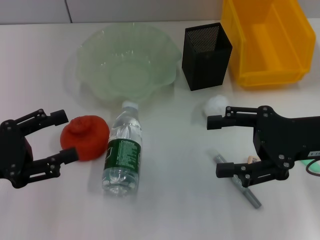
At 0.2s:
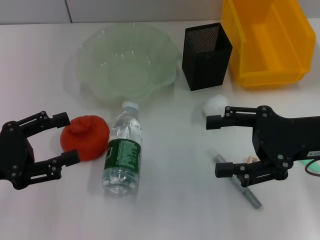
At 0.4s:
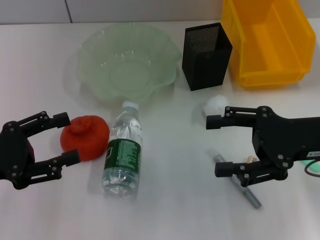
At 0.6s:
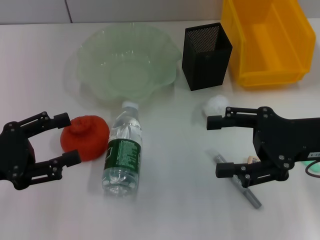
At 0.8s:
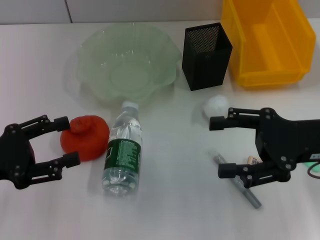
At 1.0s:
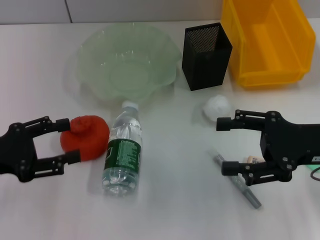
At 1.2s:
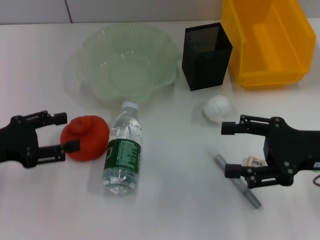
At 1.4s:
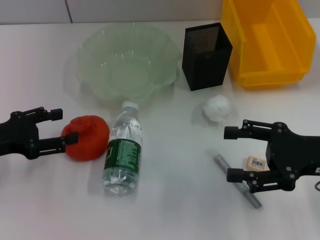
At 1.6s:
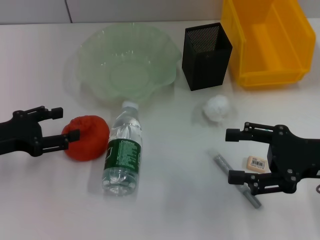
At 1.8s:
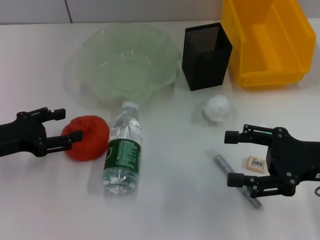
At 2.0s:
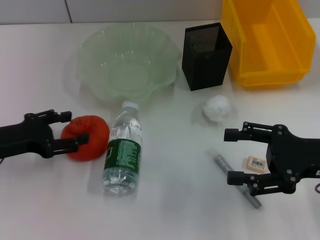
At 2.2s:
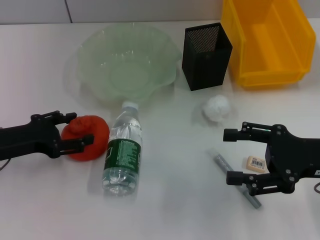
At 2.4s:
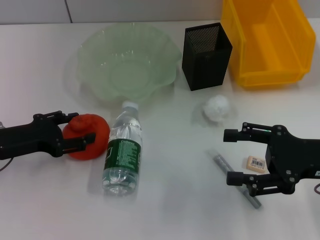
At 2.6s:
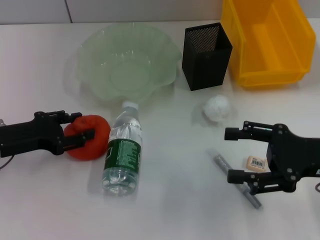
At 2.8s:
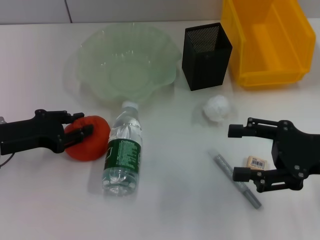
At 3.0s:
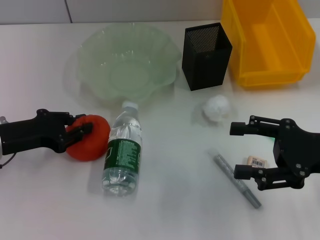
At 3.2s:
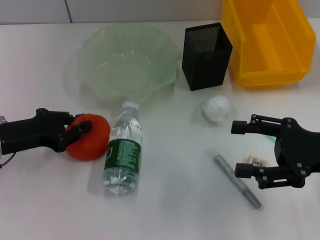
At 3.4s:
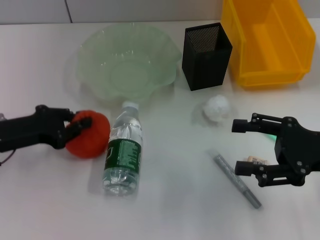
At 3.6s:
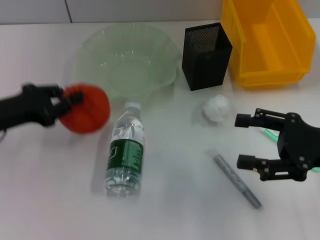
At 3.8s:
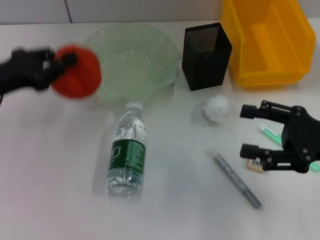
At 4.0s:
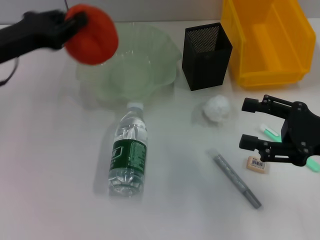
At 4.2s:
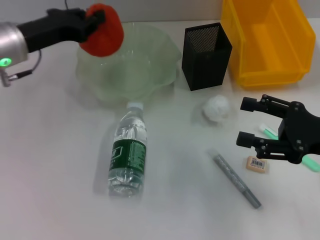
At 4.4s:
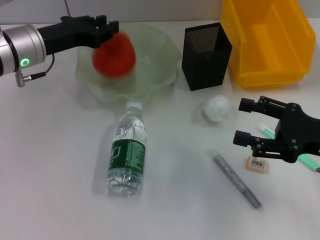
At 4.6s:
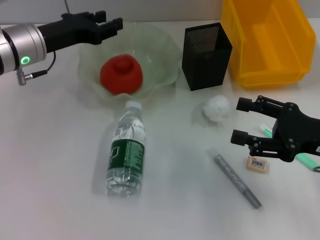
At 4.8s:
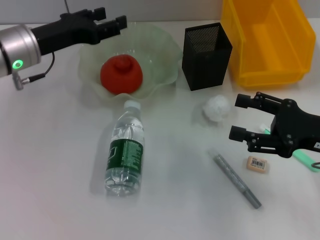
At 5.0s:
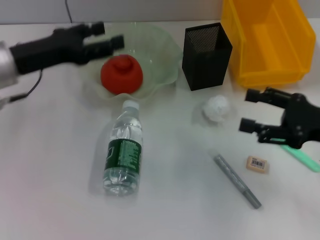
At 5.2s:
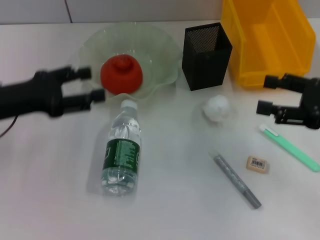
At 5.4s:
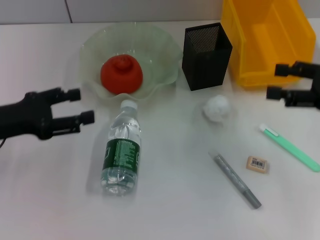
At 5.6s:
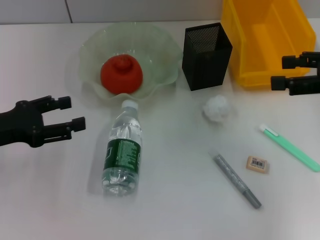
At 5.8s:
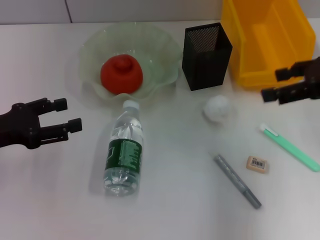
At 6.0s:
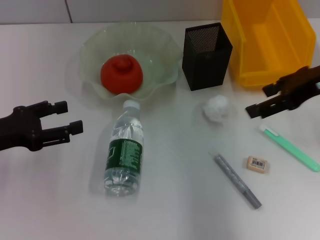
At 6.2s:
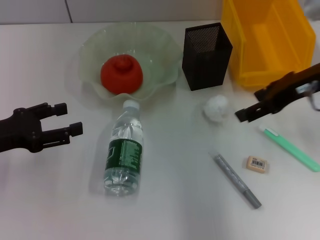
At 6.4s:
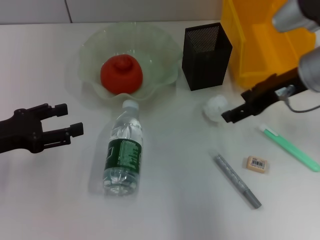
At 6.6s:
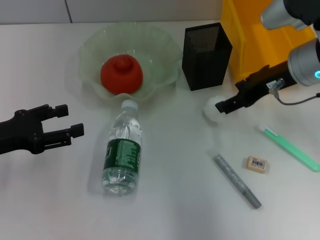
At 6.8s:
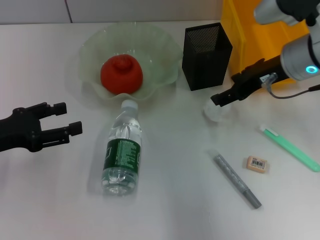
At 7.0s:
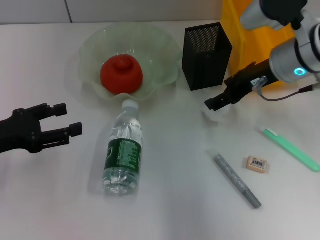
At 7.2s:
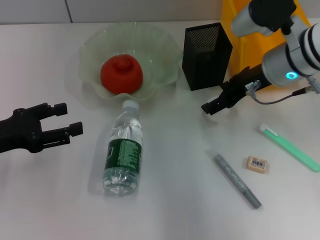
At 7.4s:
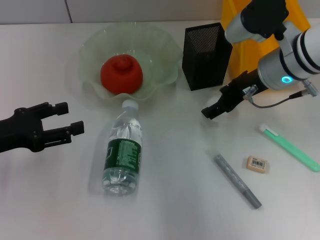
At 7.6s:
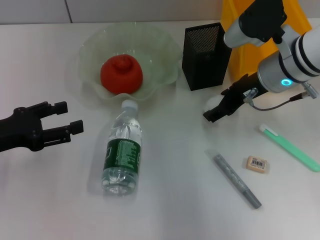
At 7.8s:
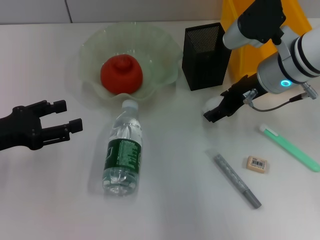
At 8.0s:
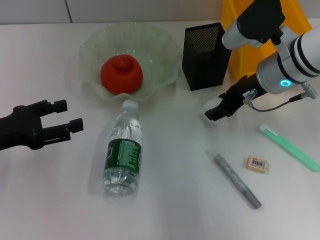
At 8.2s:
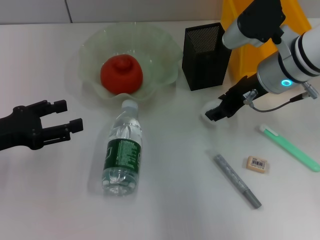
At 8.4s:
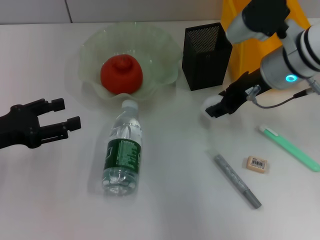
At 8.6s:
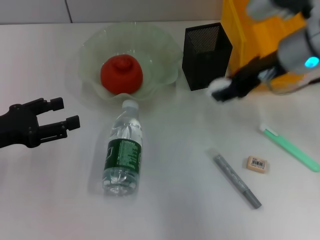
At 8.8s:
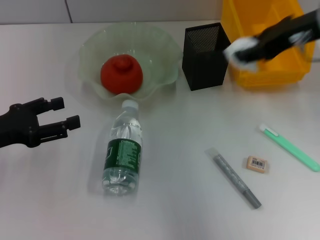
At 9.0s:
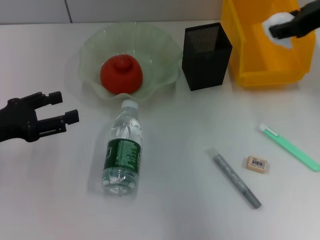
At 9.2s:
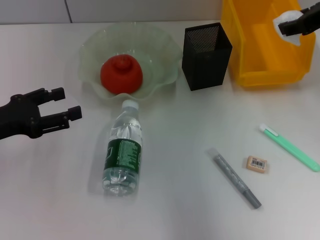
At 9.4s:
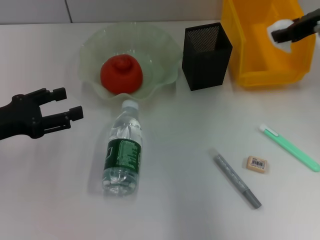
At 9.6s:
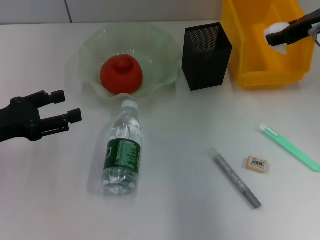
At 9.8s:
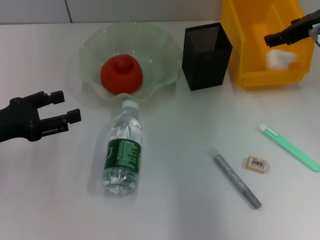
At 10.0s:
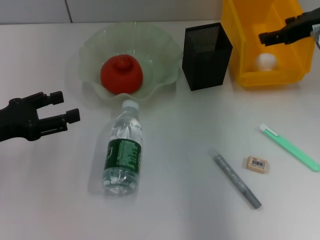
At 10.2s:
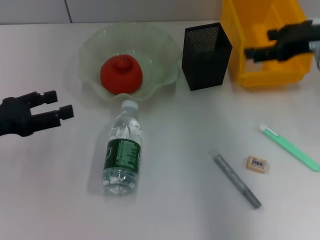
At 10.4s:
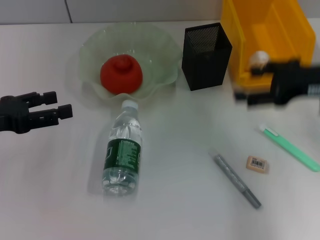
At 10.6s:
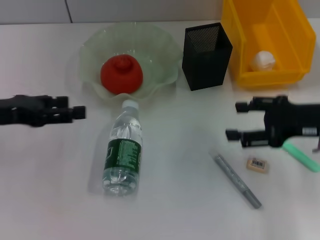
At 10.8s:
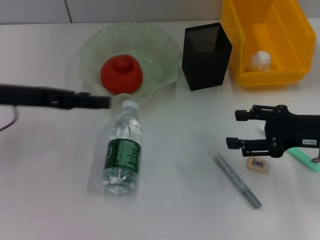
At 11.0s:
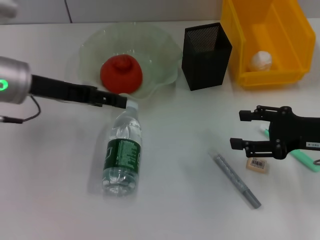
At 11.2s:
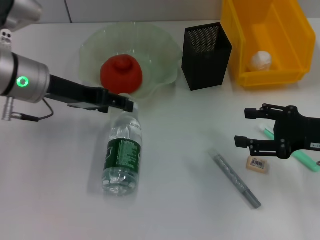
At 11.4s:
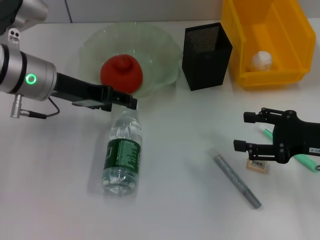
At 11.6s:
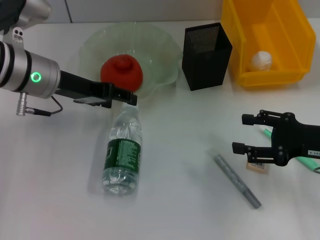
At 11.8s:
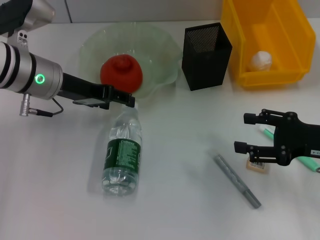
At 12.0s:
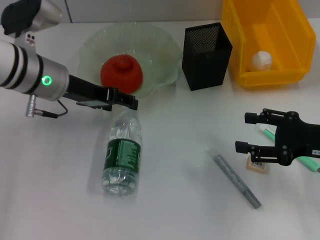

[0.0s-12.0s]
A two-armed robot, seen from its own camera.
Step, 0.0s to 3.2s: Grab the orange with the left hand.
Step, 3.4s to 4.4s: Place the orange into the fruit bowl with the left hand.
Step, 4.6s to 8.0s: Grab the paper ball with the right hand.
Step, 8.2s to 9.8s: Place the paper ball into the trash can with the right hand.
0.0s to 1.6s: The left gripper heads forward, covering approximately 5 cm.
1.6s to 3.0s: The left gripper closes its fingers.
3.0s to 4.4s: The left gripper moves forward, to the right and upward, about 15 cm.
4.4s to 6.0s: The right gripper goes some 15 cm upward and forward; the left gripper travels backward and to the left by some 15 cm, and opens.
6.0s to 7.6s: The right gripper is displaced to the left and downward by about 10 cm.
7.6s to 9.0s: The right gripper goes some 15 cm upward and to the right, and closes up.
9.0s to 10.4s: The right gripper moves downward and backward, roughly 10 cm, and opens its fingers.
10.4s to 12.0s: The left gripper is displaced to the right and forward by approximately 15 cm. The right gripper goes roughly 10 cm downward and backward.

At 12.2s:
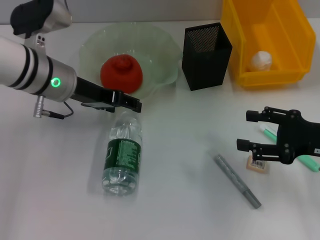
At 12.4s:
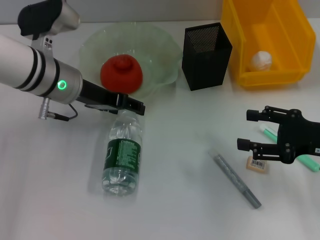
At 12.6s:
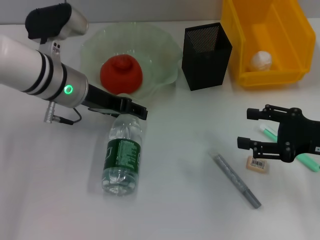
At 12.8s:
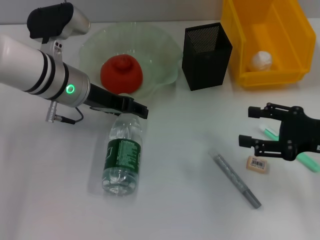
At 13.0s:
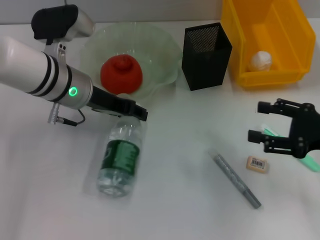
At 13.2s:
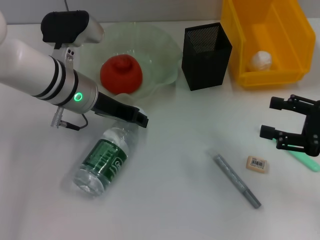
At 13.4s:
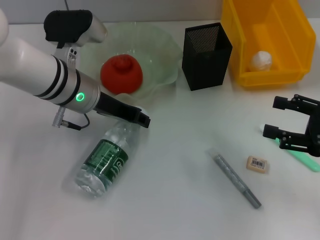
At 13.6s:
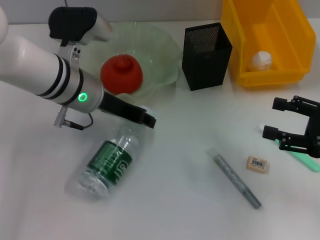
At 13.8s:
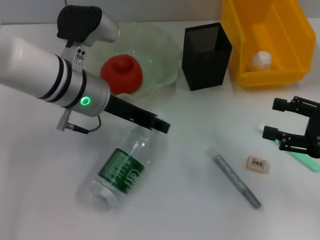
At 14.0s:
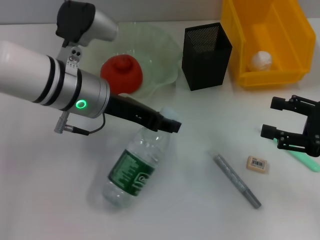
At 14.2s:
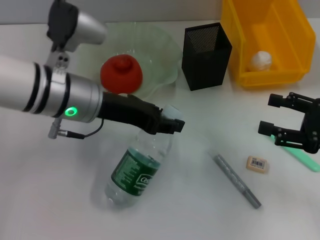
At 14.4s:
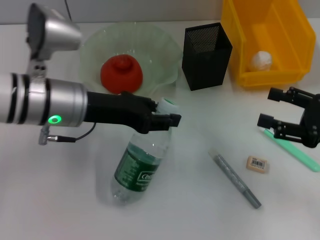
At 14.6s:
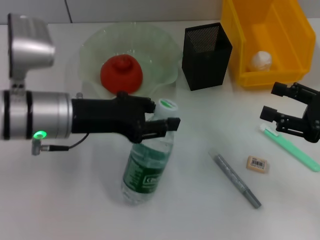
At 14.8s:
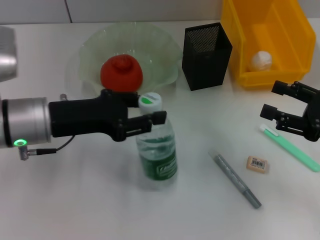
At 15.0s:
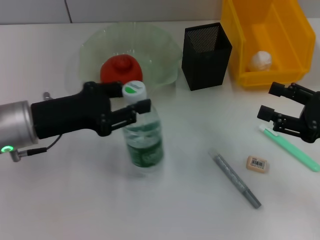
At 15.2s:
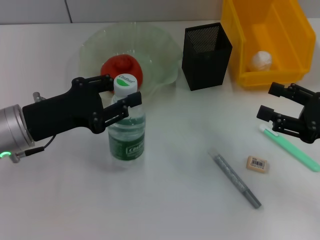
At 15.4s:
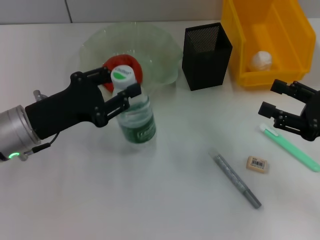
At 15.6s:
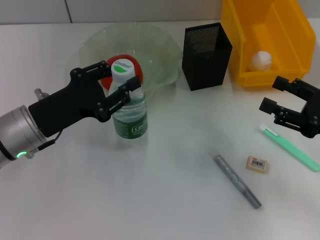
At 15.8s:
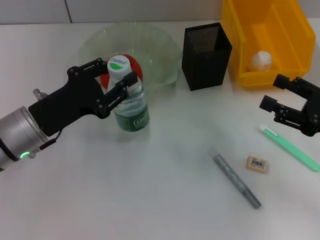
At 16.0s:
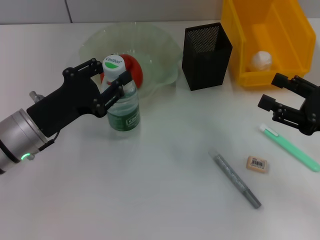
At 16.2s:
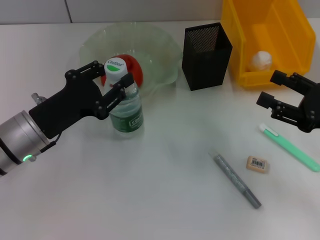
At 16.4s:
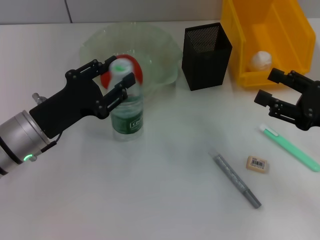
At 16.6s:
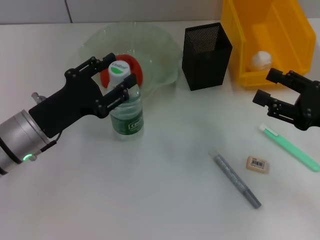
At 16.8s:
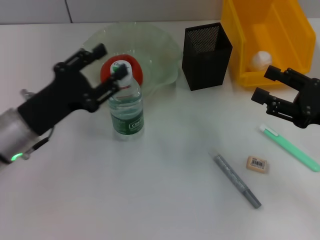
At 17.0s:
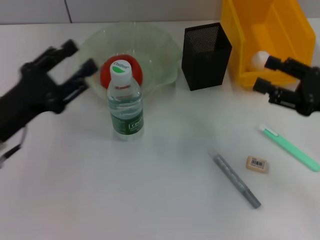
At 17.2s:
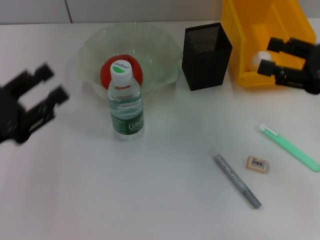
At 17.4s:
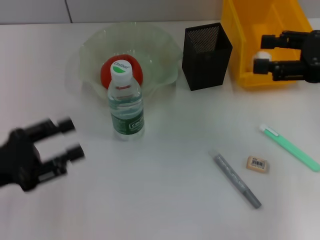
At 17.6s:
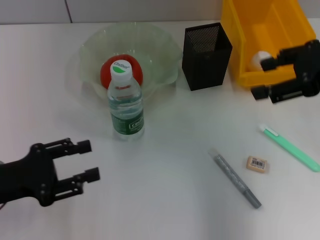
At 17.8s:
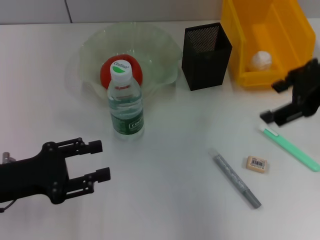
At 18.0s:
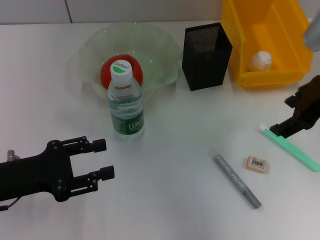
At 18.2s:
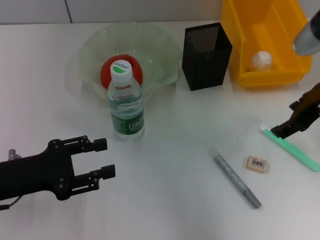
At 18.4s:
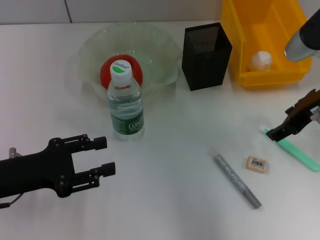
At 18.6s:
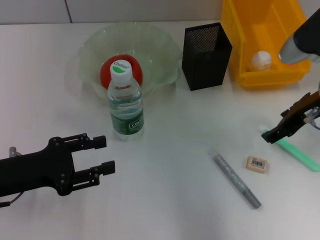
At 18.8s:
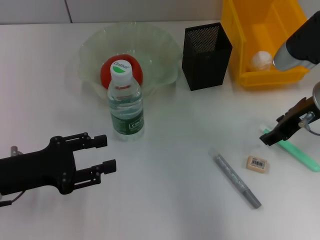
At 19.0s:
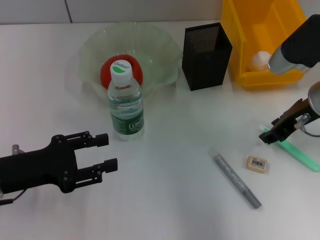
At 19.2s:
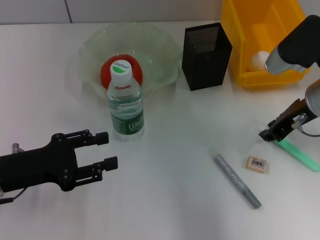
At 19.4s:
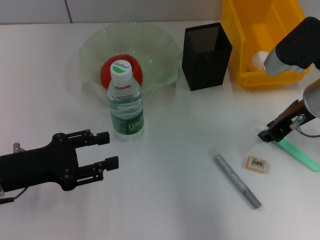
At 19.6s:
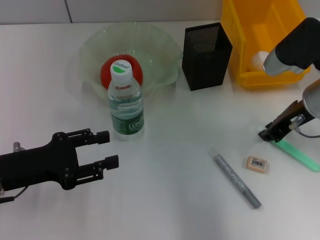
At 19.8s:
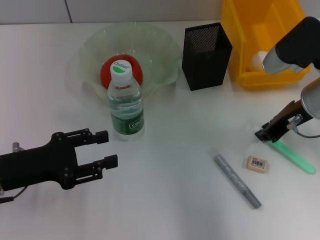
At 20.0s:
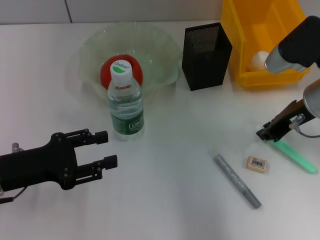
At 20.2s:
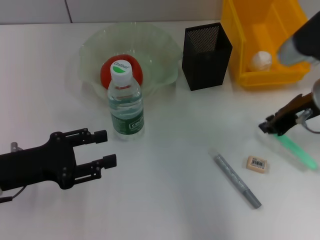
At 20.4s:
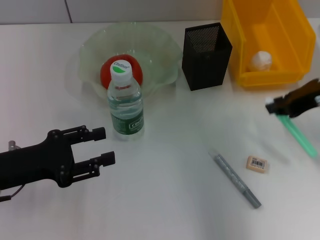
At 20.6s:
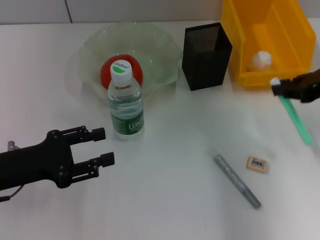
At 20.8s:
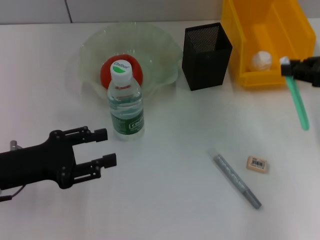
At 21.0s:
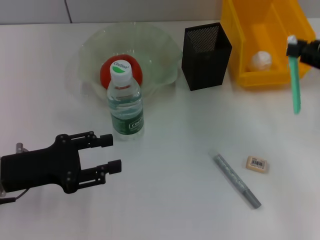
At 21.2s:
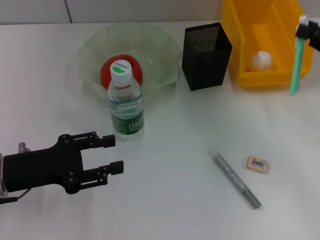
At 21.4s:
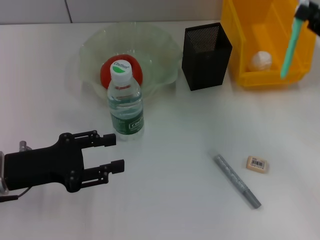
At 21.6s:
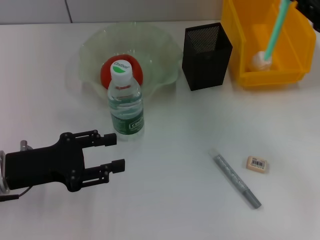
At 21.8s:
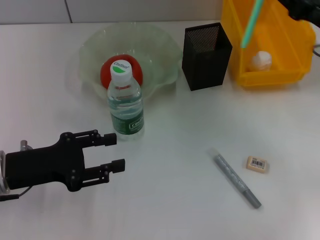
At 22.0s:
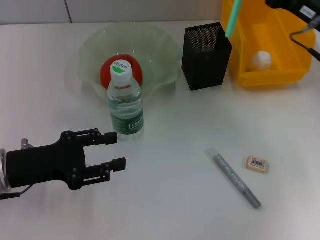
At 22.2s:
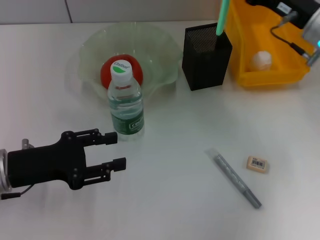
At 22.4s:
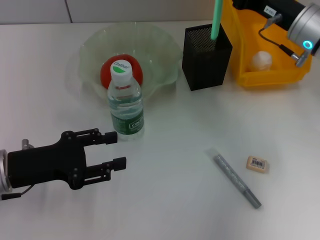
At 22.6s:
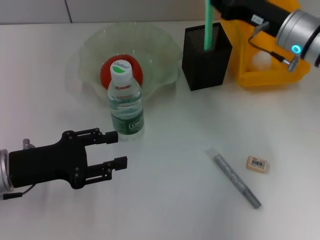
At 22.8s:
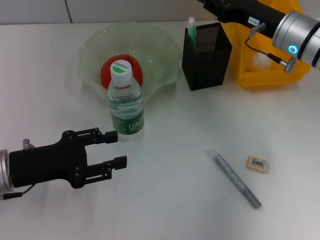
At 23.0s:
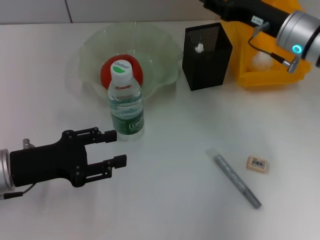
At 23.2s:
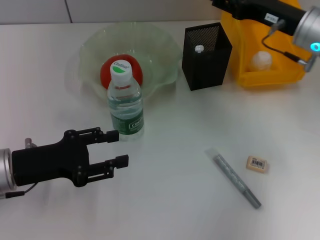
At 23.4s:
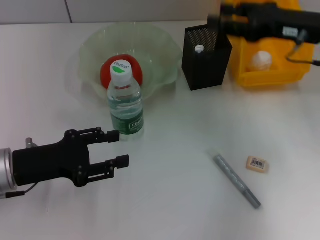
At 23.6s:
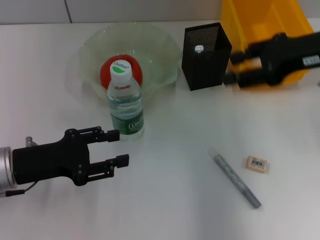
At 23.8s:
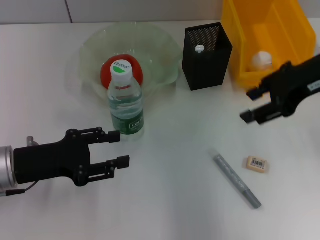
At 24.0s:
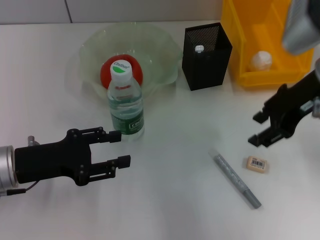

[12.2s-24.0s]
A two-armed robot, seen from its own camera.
Step, 13.4s to 16.6s: Place the water bottle on the table with the left hand.
Step, 16.8s to 19.6s: Grab the blue utility knife with the right hand.
Step, 20.0s to 22.6s: Place the blue utility knife into the pen holder with the right hand.
12.2s to 13.6s: The left gripper shifts by about 5 cm, and closes.
13.6s to 15.2s: The left gripper goes approximately 15 cm to the left and backward.
15.2s to 16.6s: The grippers stay close to where they were, moving slightly.
16.6s to 18.2s: The left gripper heads to the left and backward, covering roughly 10 cm. The right gripper is displaced upward, forward and to the left by roughly 15 cm.
18.2s to 19.6s: The right gripper goes approximately 5 cm downward, and closes its fingers.
19.6s to 21.0s: The right gripper travels to the right by some 10 cm.
21.0s to 22.6s: The right gripper heads to the left and forward, covering some 15 cm.
22.6s to 24.0s: The right gripper goes about 10 cm upward and backward, and opens up.
